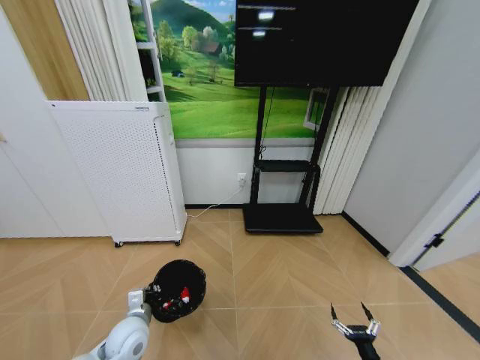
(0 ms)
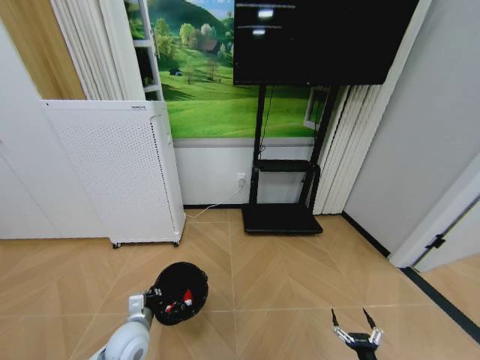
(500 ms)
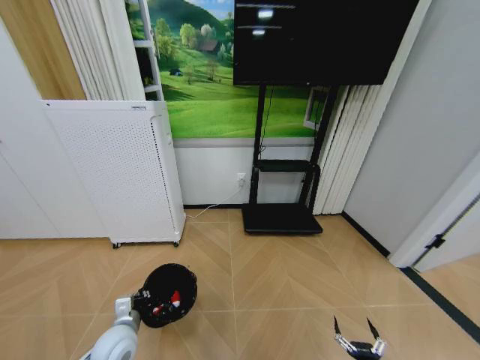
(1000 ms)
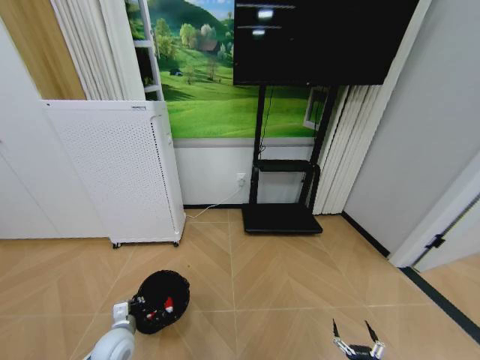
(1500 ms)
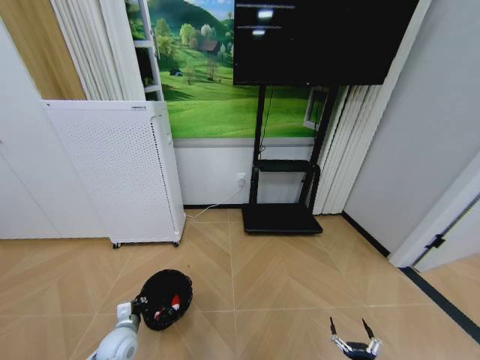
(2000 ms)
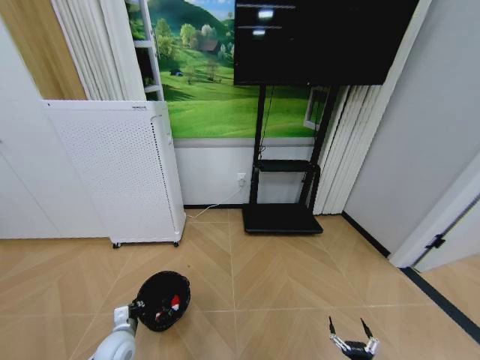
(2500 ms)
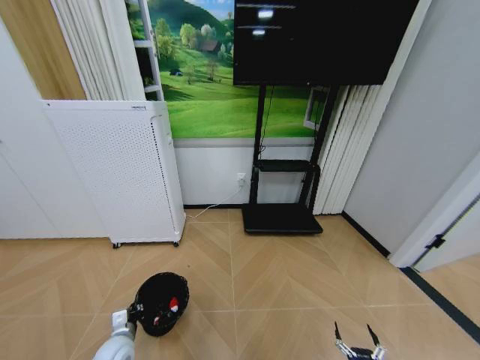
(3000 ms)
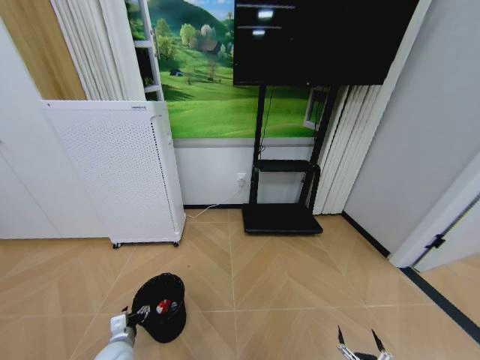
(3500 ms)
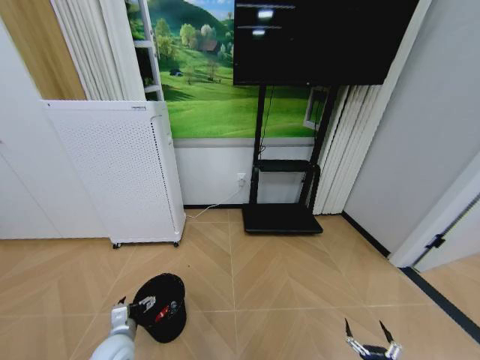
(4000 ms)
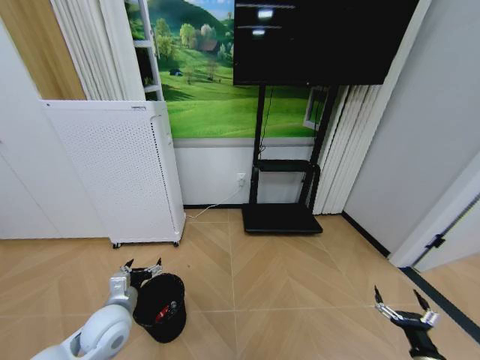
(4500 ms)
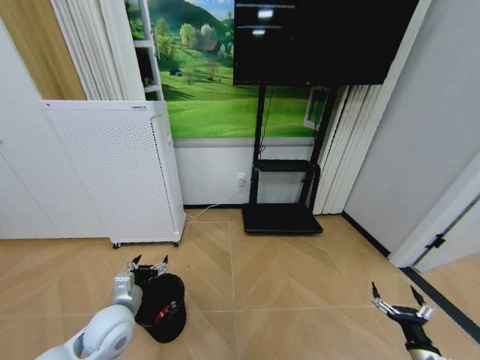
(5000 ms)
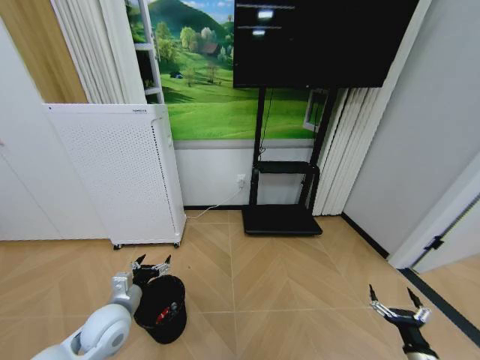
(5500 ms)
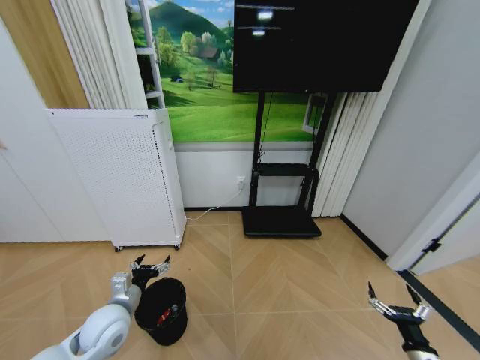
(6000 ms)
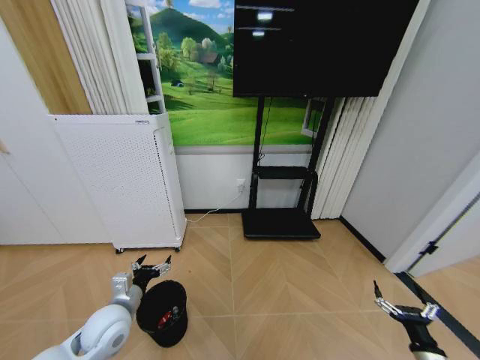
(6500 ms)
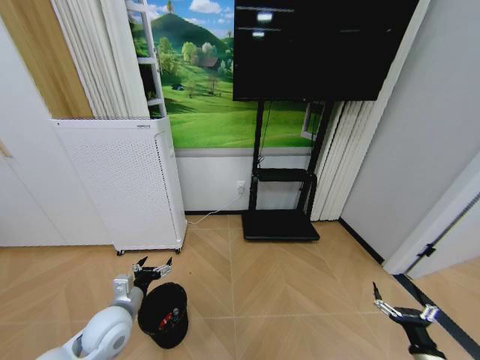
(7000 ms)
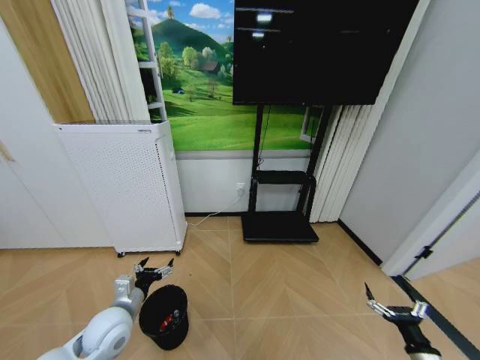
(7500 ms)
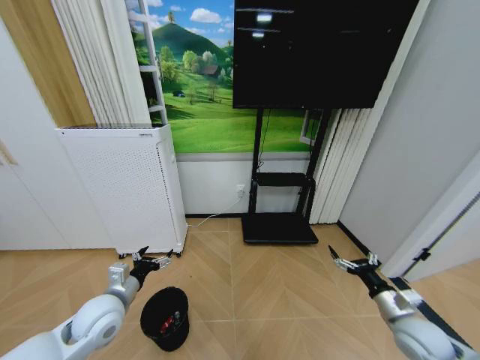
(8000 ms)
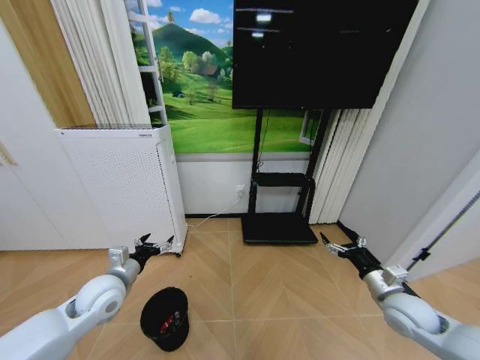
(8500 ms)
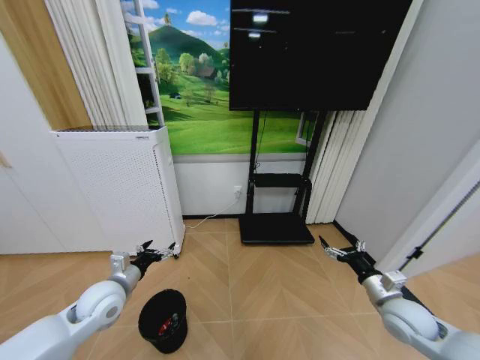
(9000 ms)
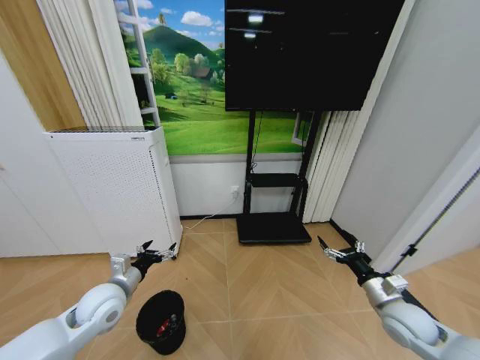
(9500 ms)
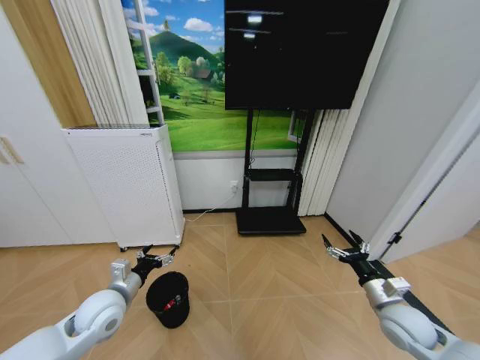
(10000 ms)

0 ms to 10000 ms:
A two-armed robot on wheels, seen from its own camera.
Task of the whole recording: Pick up the trash bin and place the garbage on the floor into it.
0 ms to 2000 ms: The left gripper goes about 10 cm downward and to the left; the right gripper moves about 5 cm.
2000 ms to 4000 ms: The left gripper moves about 5 cm, and opens its fingers.
4000 ms to 6000 ms: The left gripper goes about 10 cm upward; the right gripper heads upward, forward and to the right, covering roughly 15 cm.
6000 ms to 8000 ms: The right gripper heads upward and forward, covering about 15 cm.
8000 ms to 10000 ms: The right gripper shifts by about 5 cm.

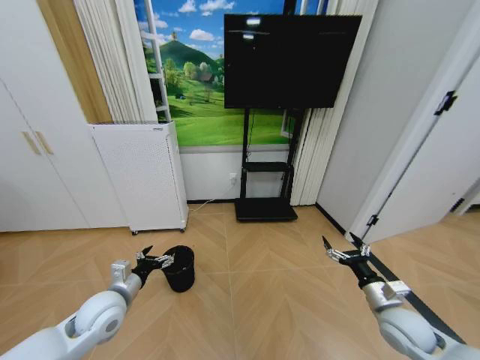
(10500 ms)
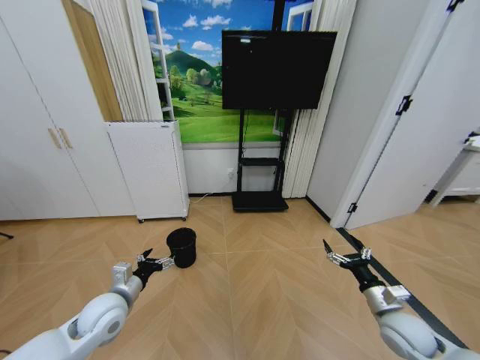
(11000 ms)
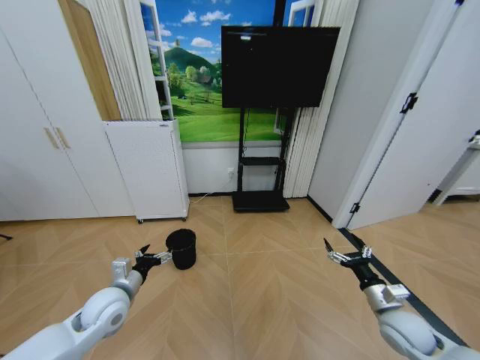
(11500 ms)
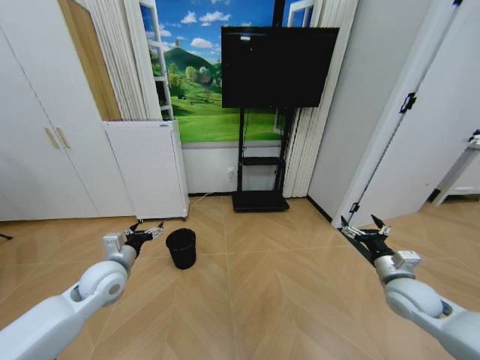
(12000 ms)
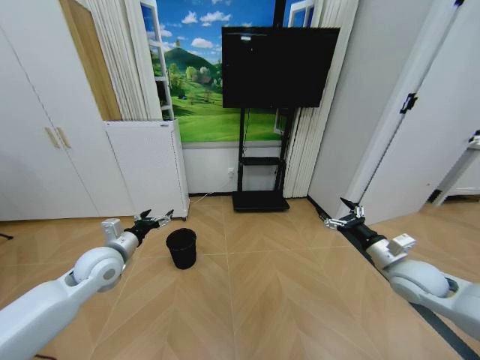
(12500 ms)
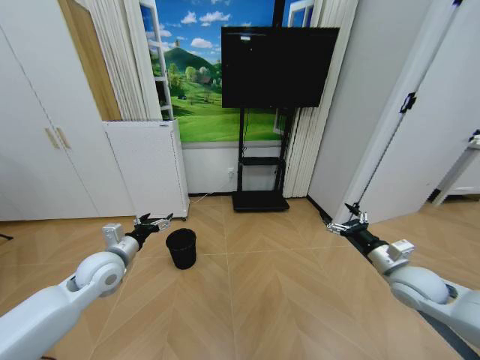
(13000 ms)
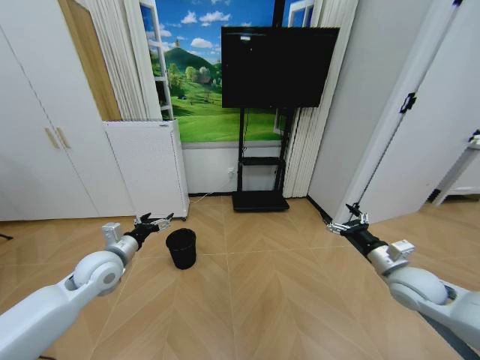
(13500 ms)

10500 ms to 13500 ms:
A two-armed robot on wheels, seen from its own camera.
Task of the whole recording: Pick up the trash bin and place the garbage on the floor into it.
10500 ms to 12000 ms: The left gripper travels forward by some 5 cm. The right gripper moves upward, some 5 cm.

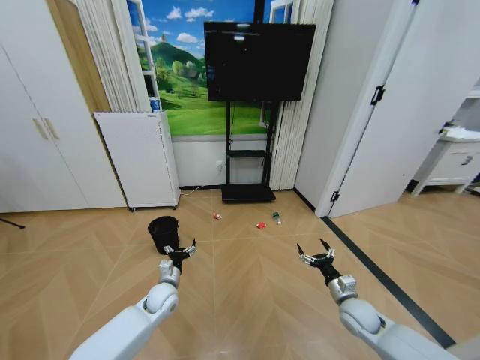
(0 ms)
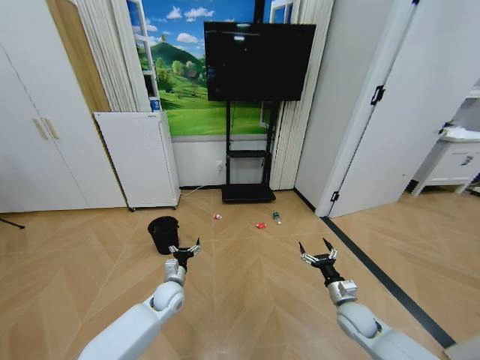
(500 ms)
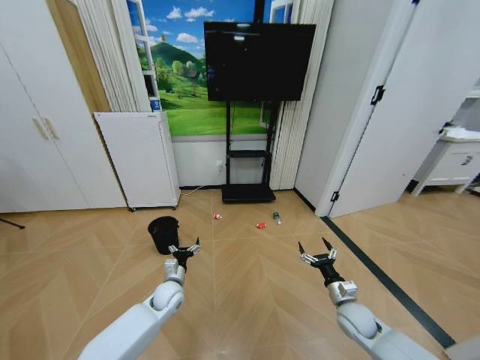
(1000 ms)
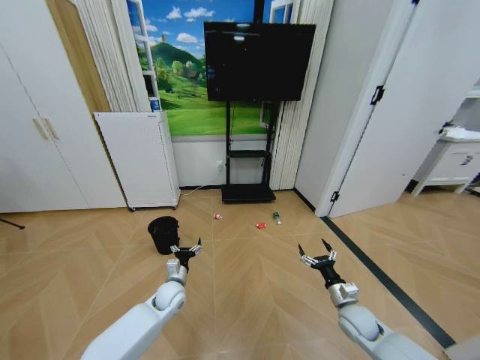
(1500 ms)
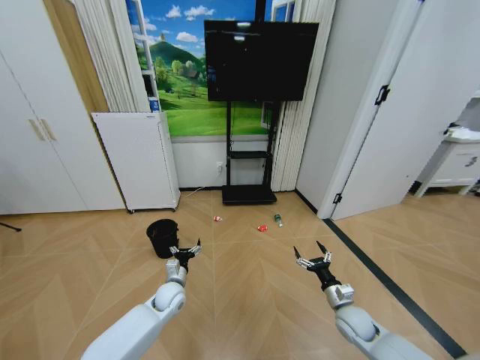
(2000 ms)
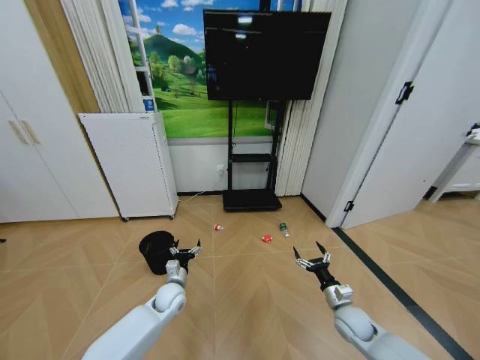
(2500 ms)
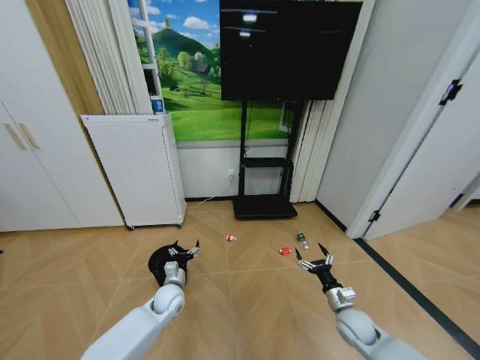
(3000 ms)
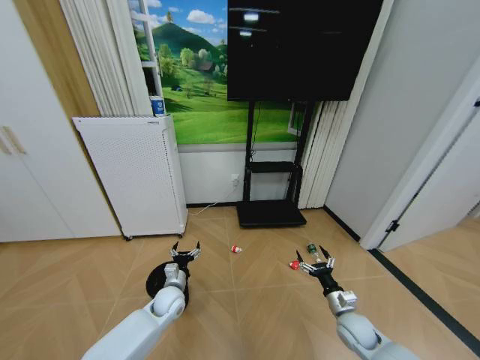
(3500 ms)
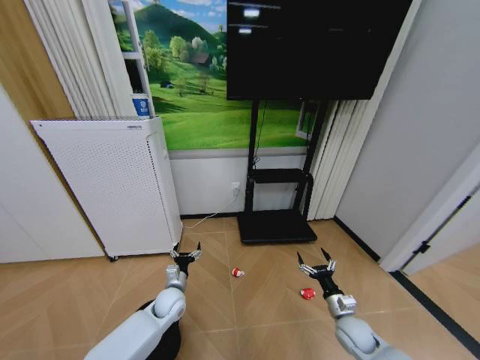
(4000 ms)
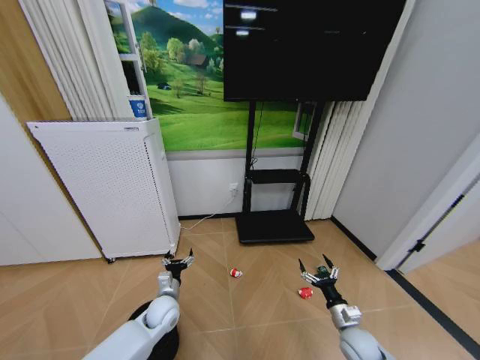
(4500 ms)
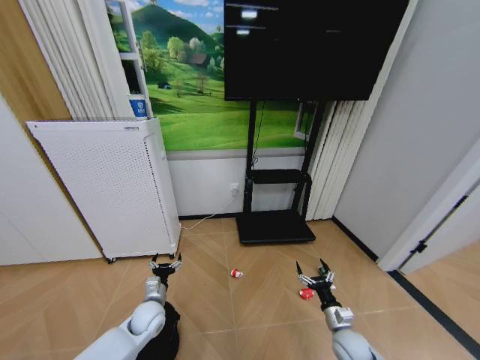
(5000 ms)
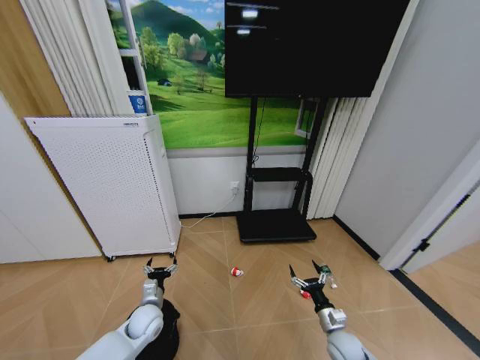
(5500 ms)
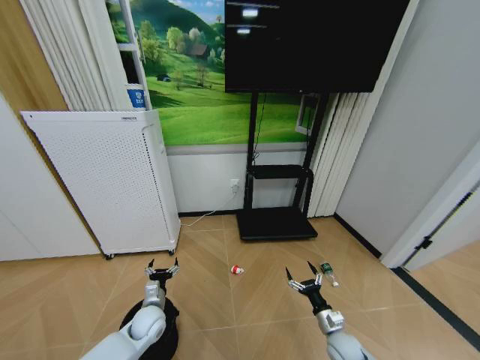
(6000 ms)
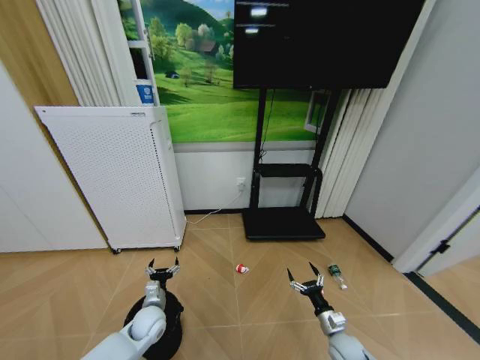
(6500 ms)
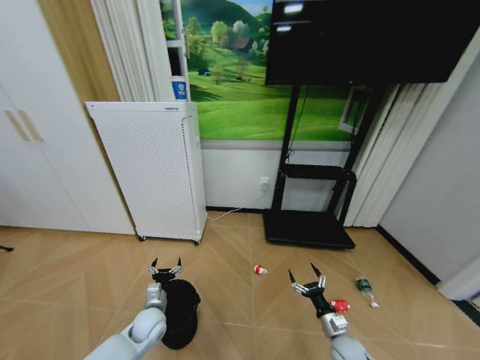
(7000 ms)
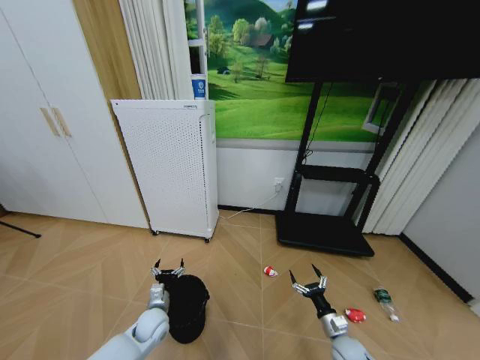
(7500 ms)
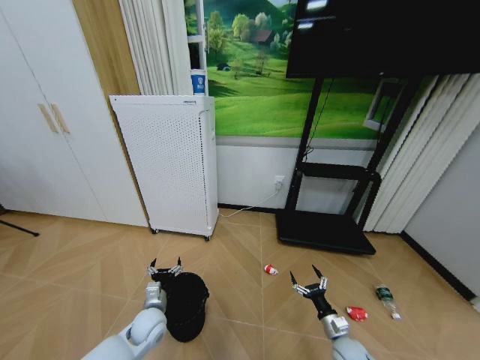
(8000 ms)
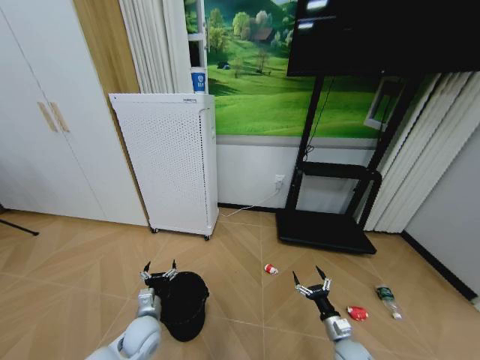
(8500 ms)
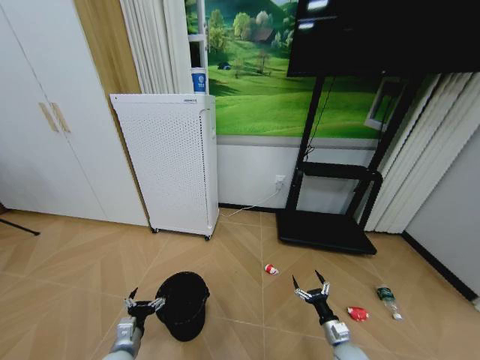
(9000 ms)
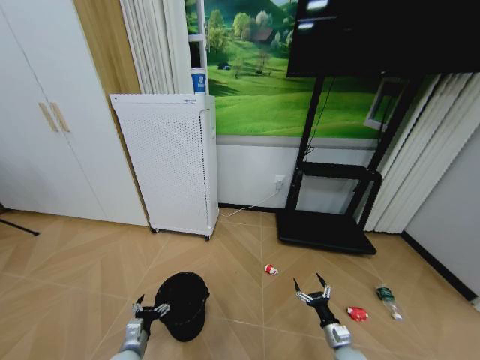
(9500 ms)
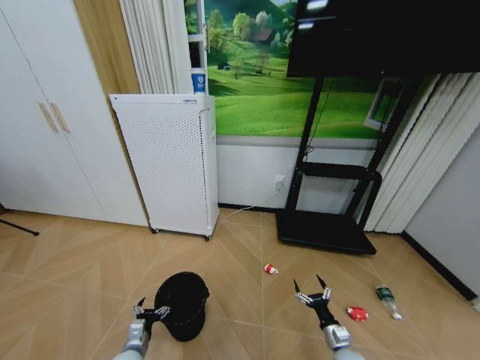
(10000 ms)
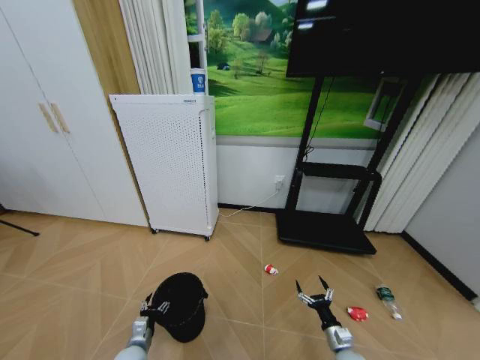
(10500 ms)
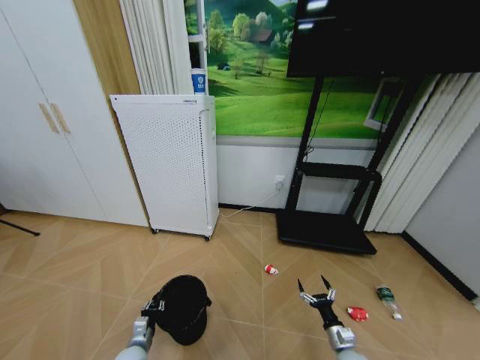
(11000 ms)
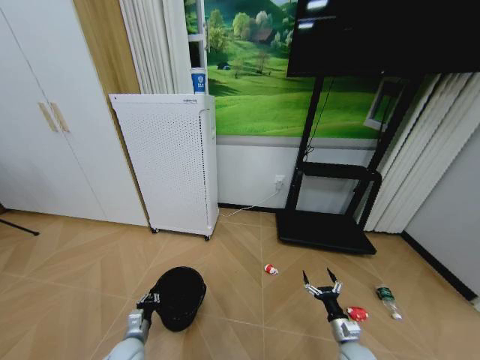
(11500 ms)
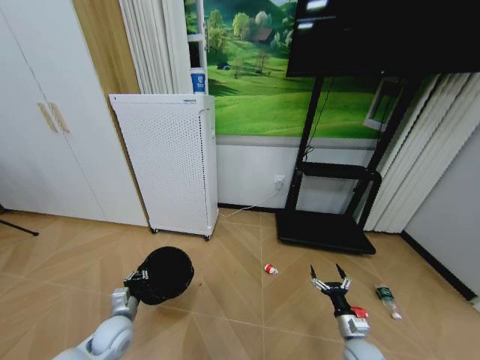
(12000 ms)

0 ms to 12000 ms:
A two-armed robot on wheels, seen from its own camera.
Task of the whole recording: Pick up the trash bin and place the garbage on the floor into it.
4000 ms to 6000 ms: The left gripper moves to the left, some 5 cm; the right gripper ends up approximately 5 cm from where it was.
8000 ms to 10000 ms: The left gripper moves backward, downward and to the left, some 10 cm.
10000 ms to 12000 ms: The left gripper shifts some 10 cm upward and forward, and closes up; the right gripper ends up approximately 5 cm from where it was.
